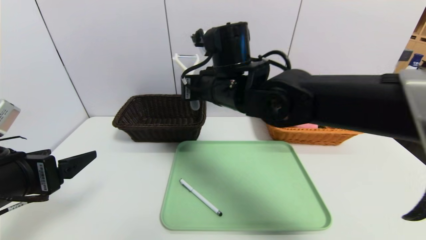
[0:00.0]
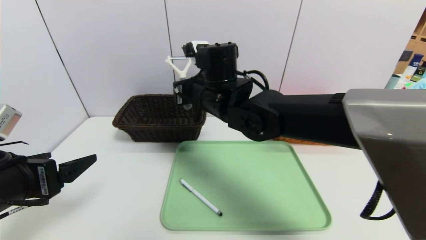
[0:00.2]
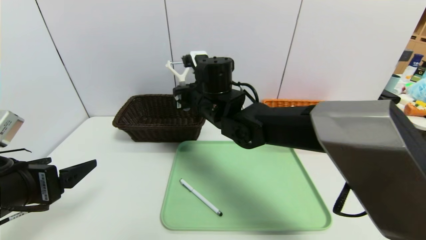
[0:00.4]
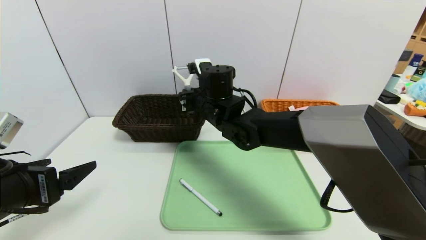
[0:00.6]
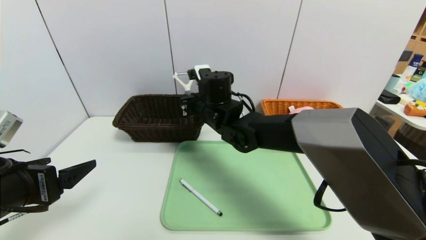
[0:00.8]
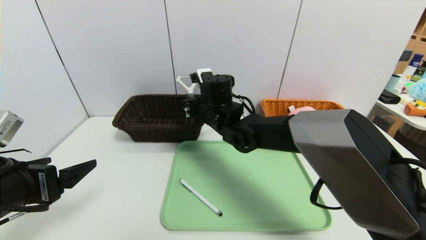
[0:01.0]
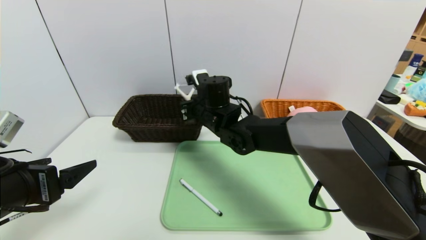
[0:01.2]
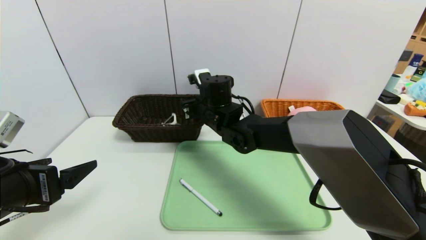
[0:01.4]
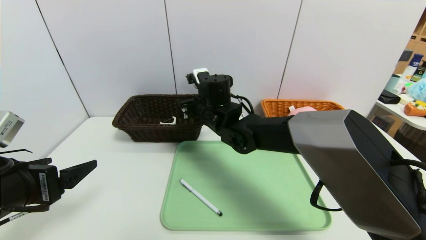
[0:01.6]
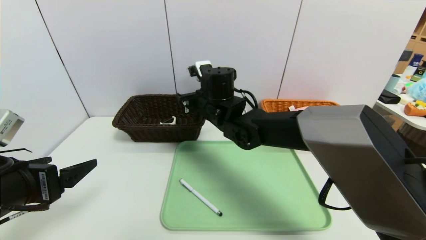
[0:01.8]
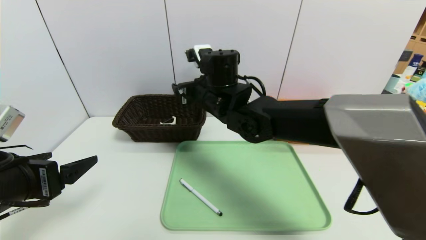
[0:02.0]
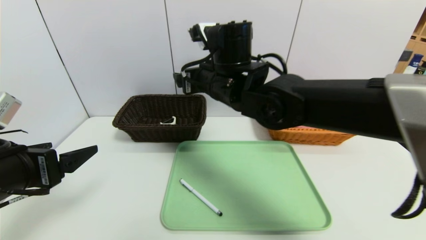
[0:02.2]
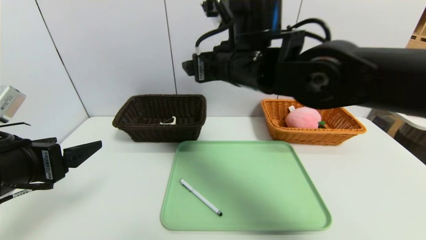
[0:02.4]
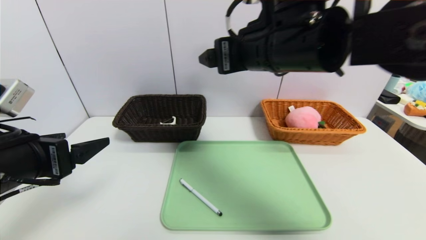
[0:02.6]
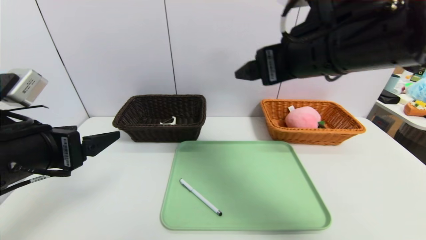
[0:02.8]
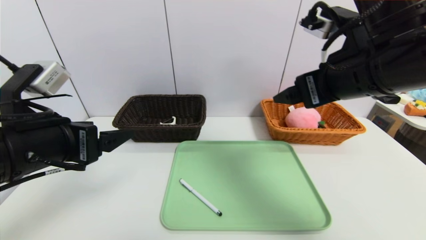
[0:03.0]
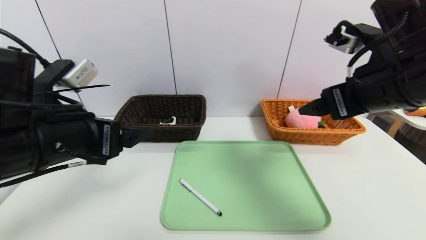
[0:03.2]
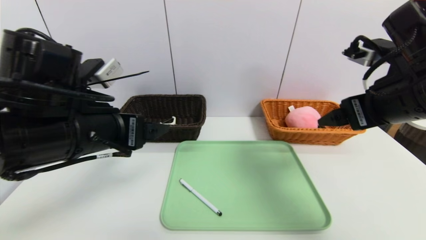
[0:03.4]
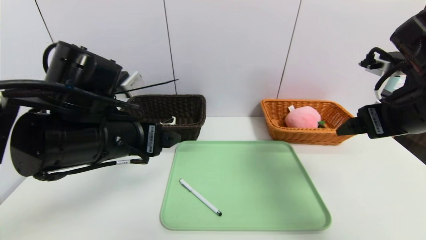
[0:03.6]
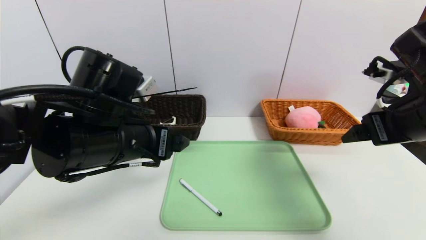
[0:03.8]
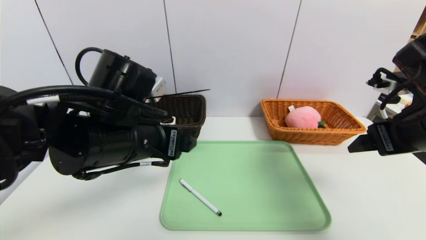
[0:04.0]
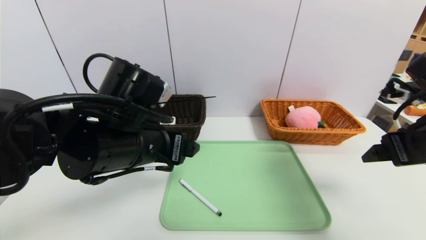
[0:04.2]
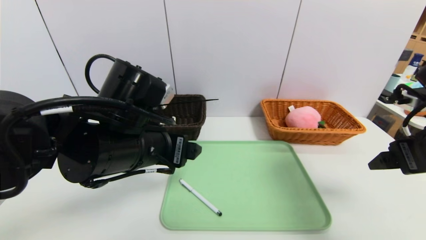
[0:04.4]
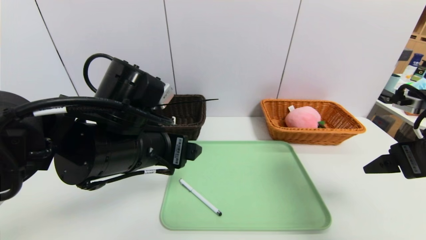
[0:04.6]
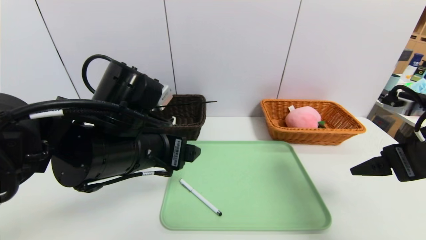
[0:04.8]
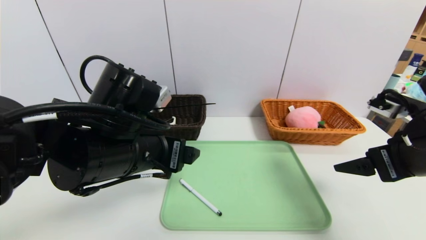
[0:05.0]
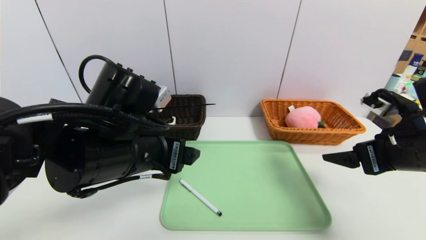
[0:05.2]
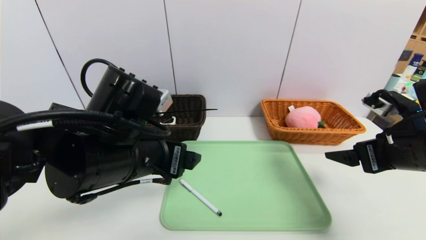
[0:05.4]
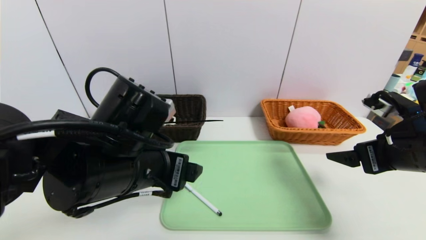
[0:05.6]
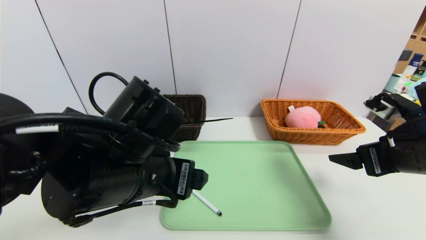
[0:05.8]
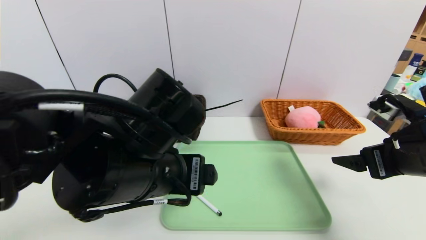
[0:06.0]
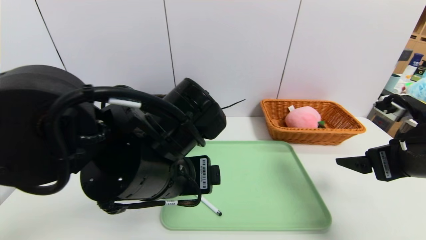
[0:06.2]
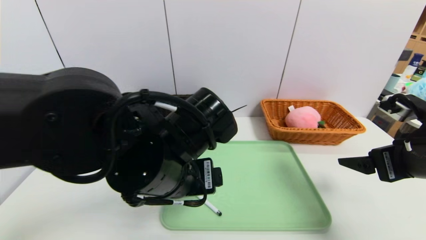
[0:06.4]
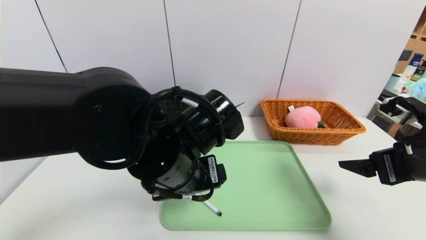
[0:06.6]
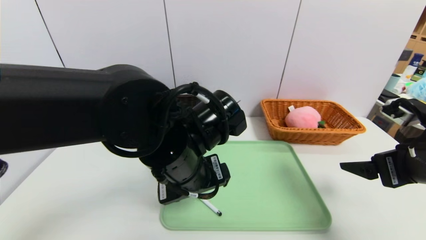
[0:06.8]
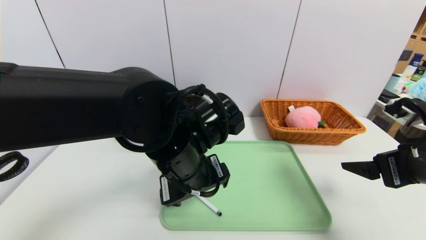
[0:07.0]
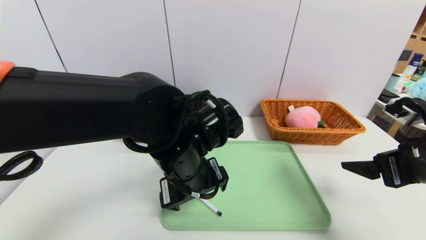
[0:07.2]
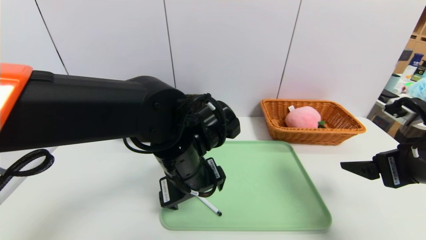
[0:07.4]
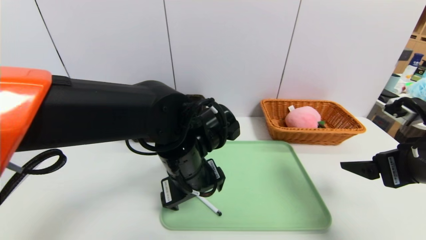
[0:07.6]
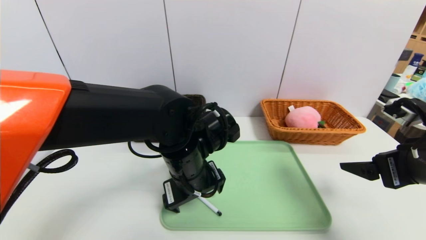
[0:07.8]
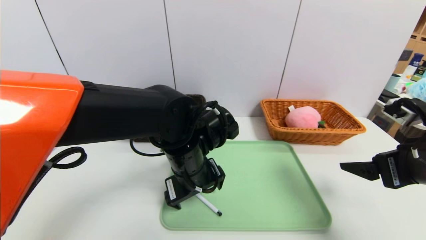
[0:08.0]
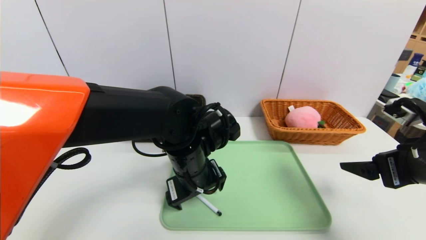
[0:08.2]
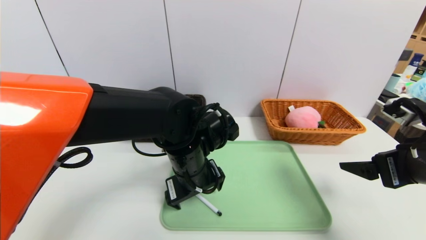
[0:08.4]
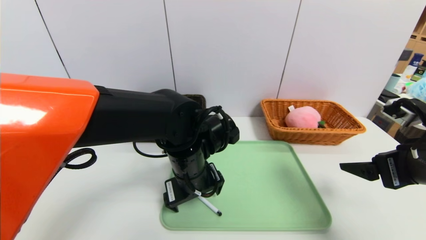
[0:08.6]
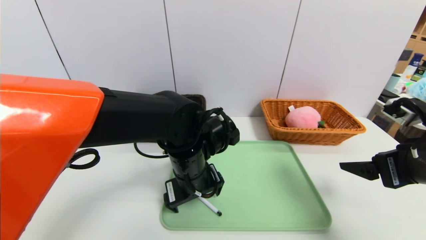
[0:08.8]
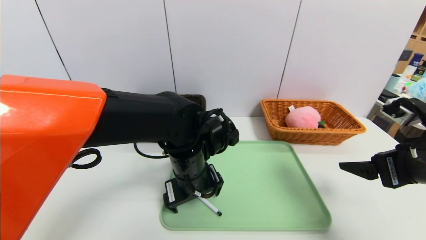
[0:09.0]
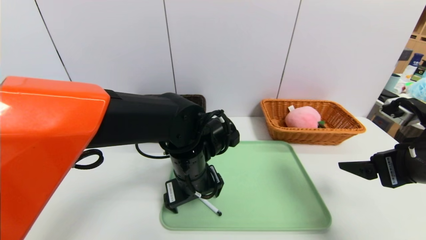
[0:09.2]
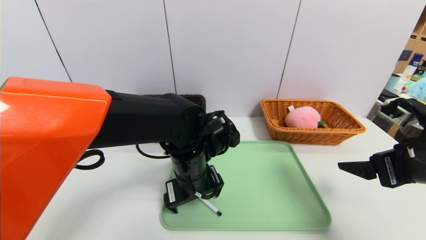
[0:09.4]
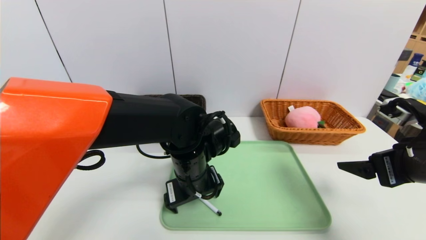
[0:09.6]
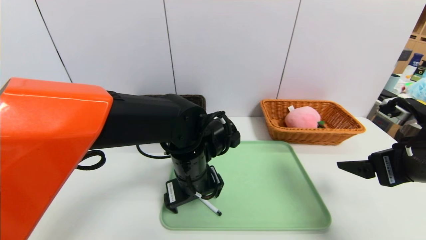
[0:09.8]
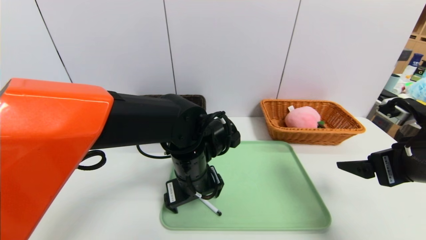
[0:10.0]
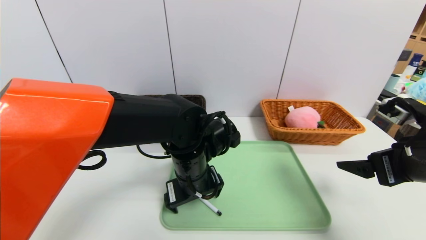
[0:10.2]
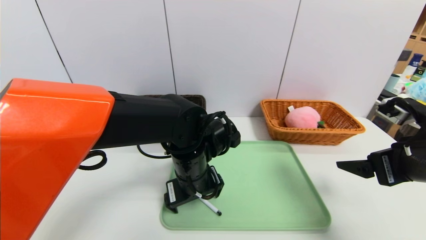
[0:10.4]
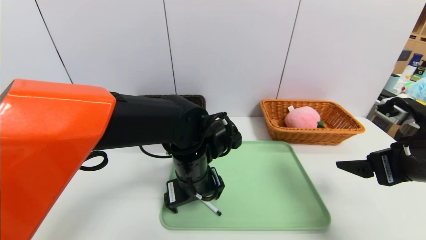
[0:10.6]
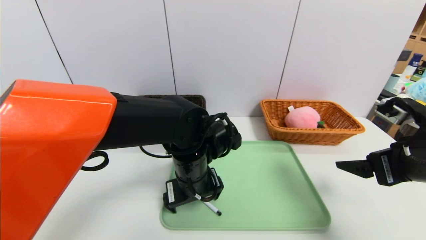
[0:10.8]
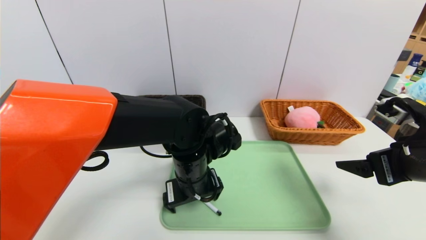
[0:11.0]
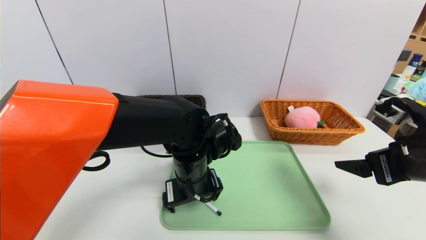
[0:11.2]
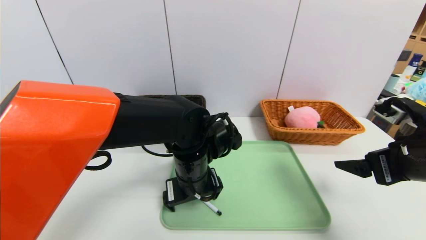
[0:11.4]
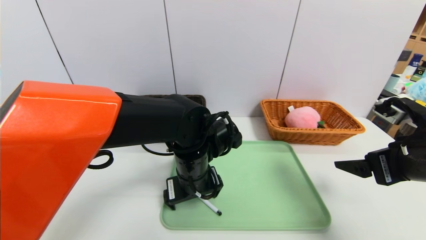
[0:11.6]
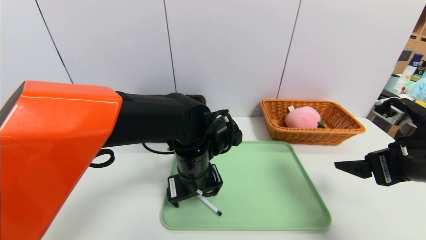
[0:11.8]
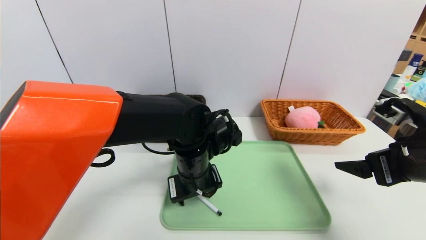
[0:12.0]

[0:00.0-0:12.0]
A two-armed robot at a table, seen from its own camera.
Task of the whole recording: place the food in the right basket with the right gripper, and place the non food items in the left basket with the left gripper.
0.0 to 1.6 s: The right gripper moves downward and forward, approximately 10 cm, and opens its fingers.
1.6 to 3.0 s: The left gripper travels upward by roughly 5 cm. Meanwhile the right gripper goes about 30 cm to the right, backward and upward.
3.0 to 4.4 s: The right gripper goes about 15 cm to the right and downward, while the left gripper shifts some 10 cm to the right.
6.0 to 7.6 s: The left gripper moves forward and downward, about 10 cm.
7.6 to 9.0 s: The grippers move only a little.
9.0 to 10.4 s: Both grippers stay about where they are.
10.4 to 12.0 s: The left gripper closes.

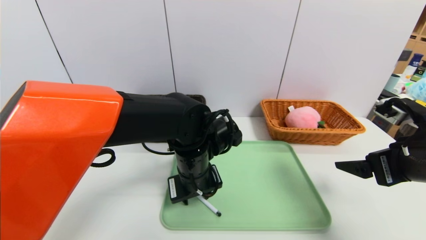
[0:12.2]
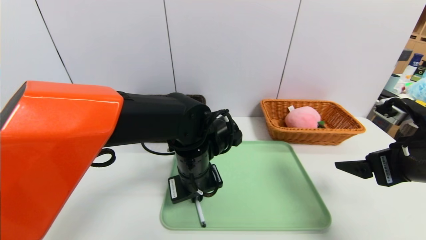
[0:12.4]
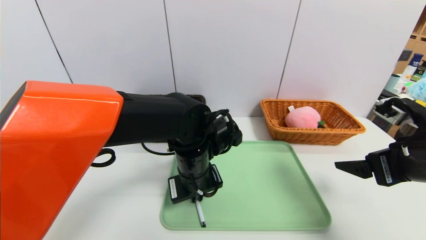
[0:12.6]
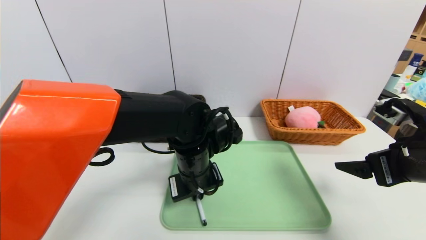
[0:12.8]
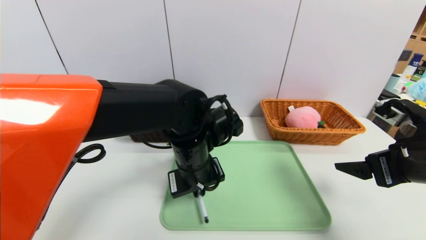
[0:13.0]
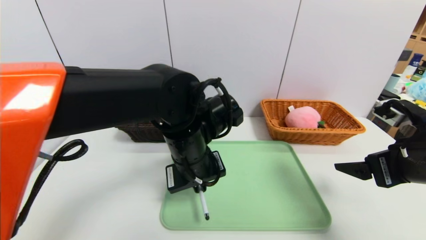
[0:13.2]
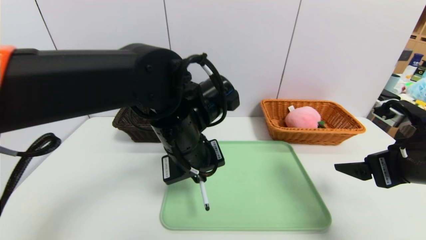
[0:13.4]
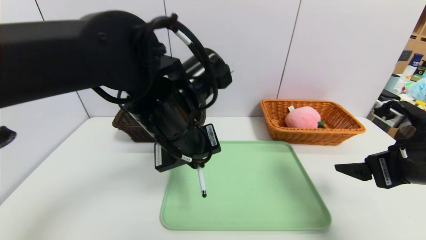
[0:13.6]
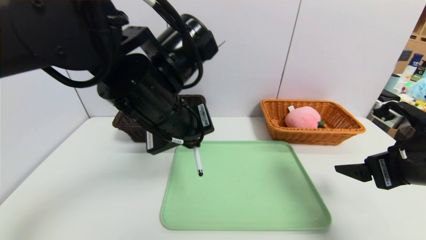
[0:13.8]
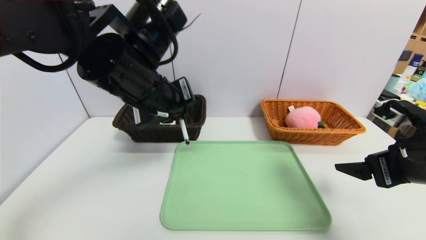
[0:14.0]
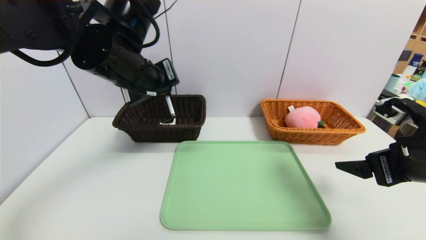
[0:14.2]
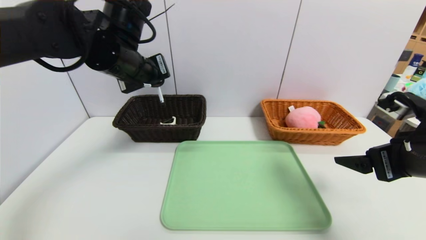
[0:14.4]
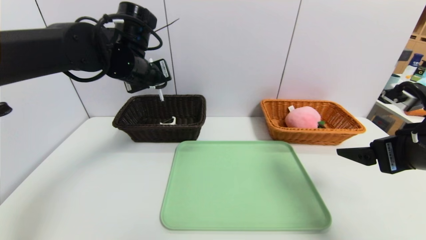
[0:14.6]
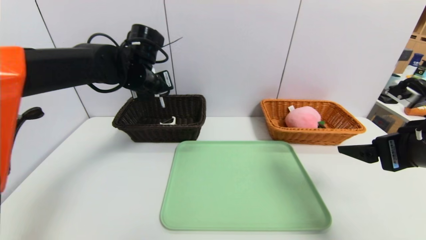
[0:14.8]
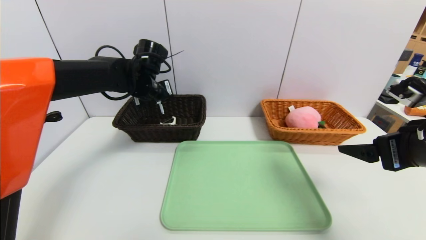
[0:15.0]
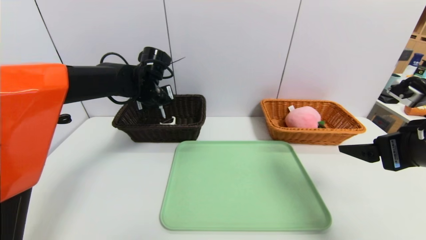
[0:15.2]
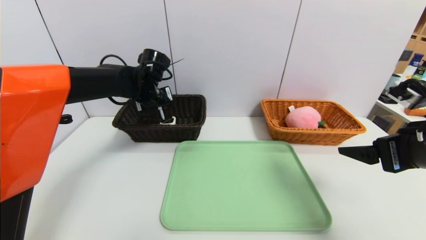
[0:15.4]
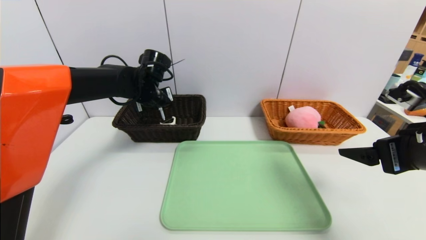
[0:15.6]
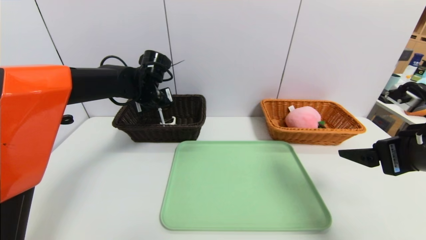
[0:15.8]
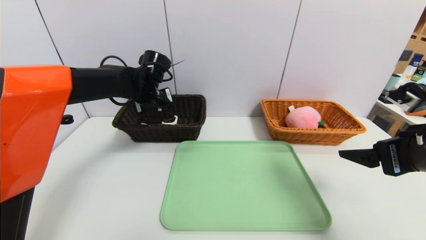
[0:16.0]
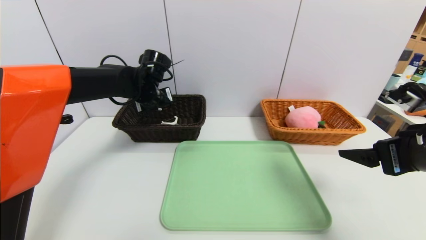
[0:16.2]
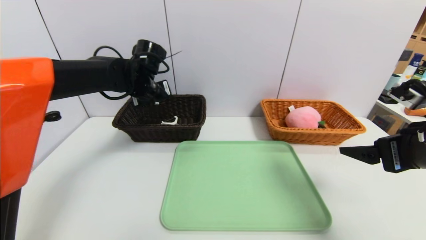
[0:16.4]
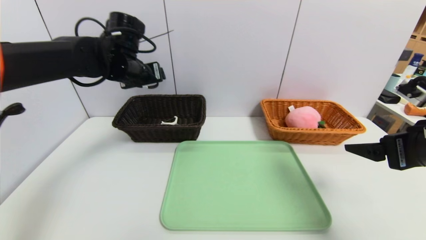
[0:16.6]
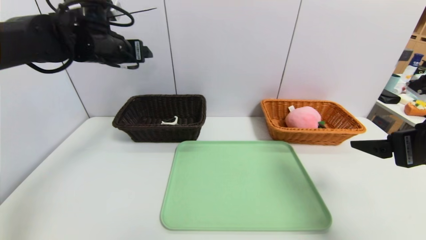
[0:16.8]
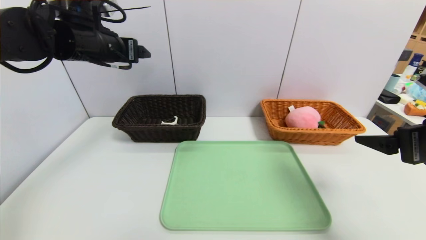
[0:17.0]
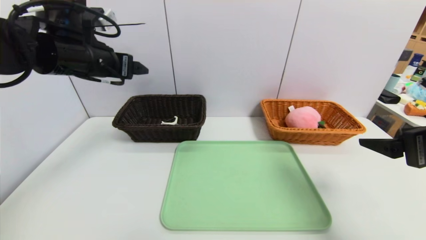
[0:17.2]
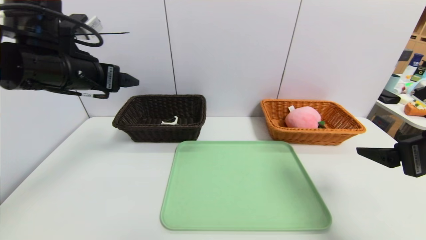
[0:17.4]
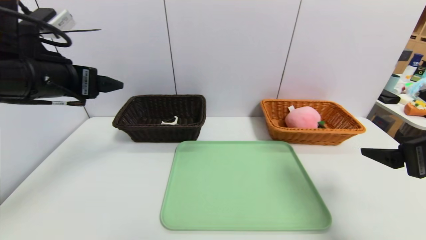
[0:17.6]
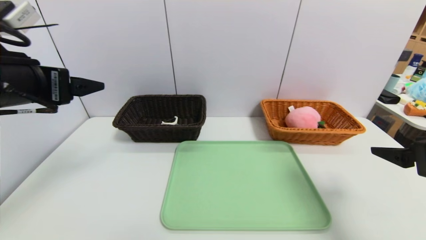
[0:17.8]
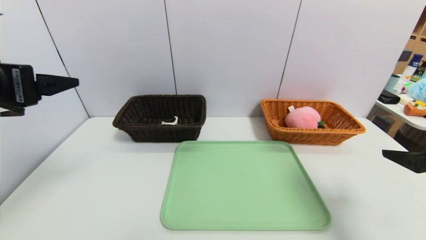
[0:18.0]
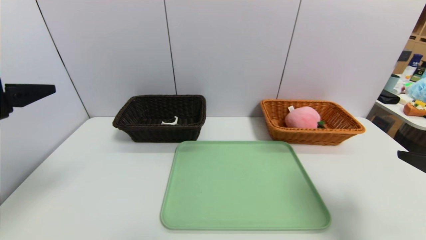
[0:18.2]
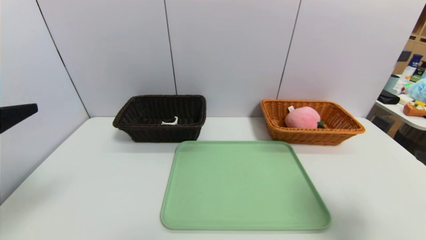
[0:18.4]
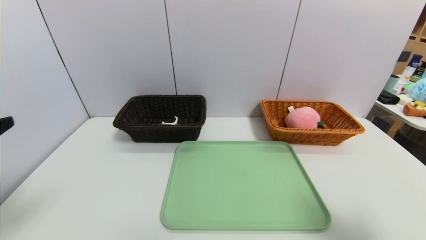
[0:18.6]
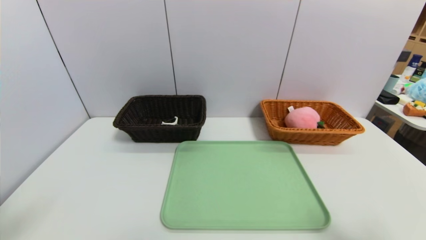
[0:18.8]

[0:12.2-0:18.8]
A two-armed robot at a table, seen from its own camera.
Task of the whole recording: place the food in the right basket with the right gripper, and place the non food items in the left basket with the left gripper.
Step, 12.2 to 16.4 s: Grasp the pen container and put it in the left basket.
12.2 to 13.8 s: The left gripper is displaced upward by about 15 cm, and closes its fingers.
13.8 to 15.4 s: The left gripper shifts some 20 cm forward and to the left.
15.4 to 17.2 s: The left gripper heads upward, backward and to the left, covering about 15 cm, and opens.
17.2 to 18.8 s: The left gripper is displaced backward by roughly 30 cm. The right gripper shifts approximately 15 cm backward.
